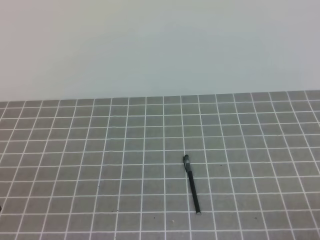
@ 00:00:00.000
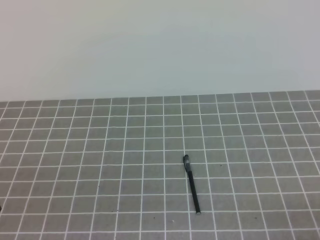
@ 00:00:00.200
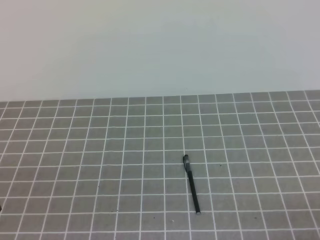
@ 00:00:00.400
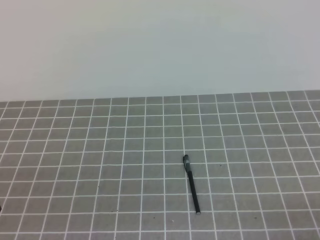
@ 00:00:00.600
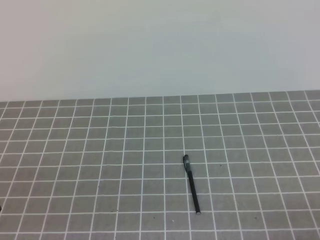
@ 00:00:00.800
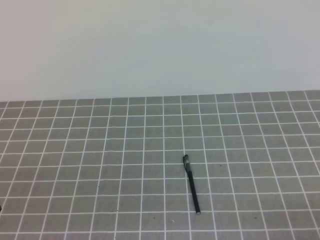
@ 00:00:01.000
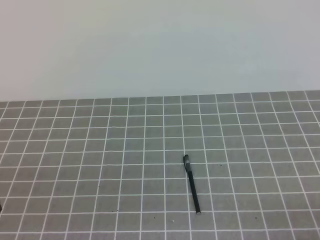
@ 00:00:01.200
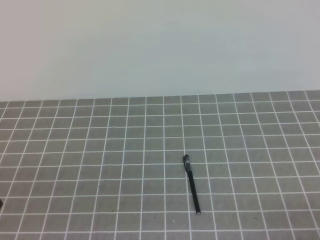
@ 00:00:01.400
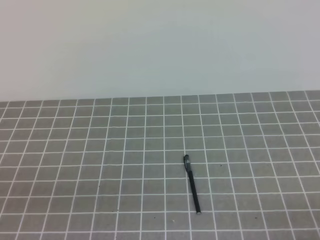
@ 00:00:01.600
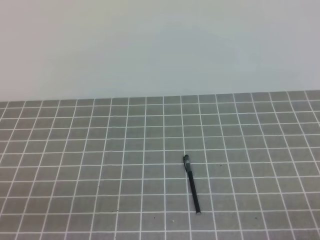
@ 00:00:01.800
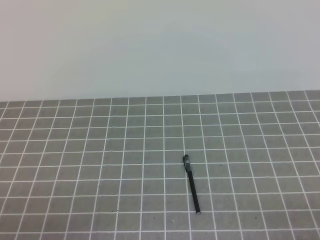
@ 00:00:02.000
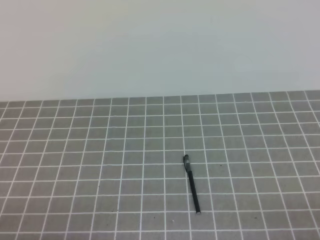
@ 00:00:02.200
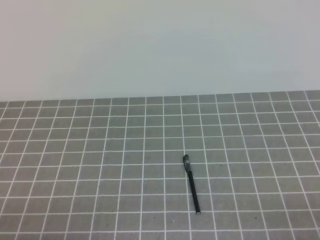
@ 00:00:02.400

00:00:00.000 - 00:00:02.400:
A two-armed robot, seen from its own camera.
Task of the whole recording: on the grey tablecloth, hold the pen cap in one hand and the pen in the other, then cover the pen cap.
00:00:00.000 - 00:00:01.200: Both grippers stay about where they are.
